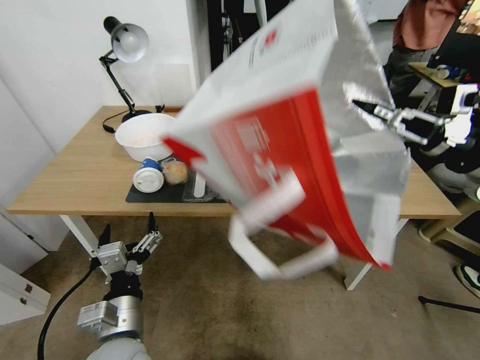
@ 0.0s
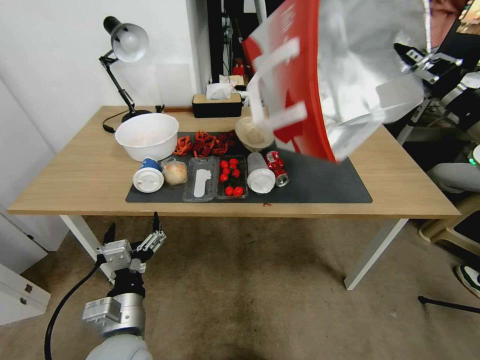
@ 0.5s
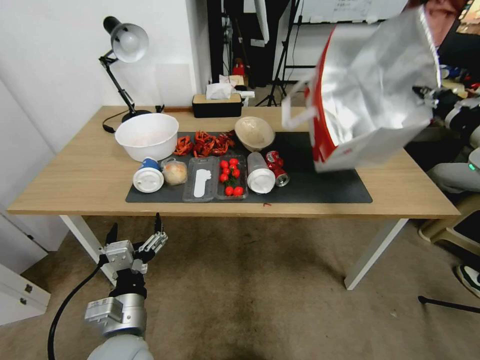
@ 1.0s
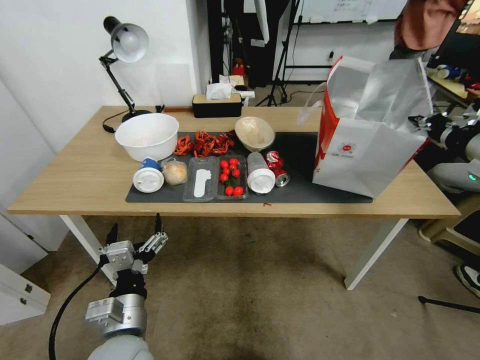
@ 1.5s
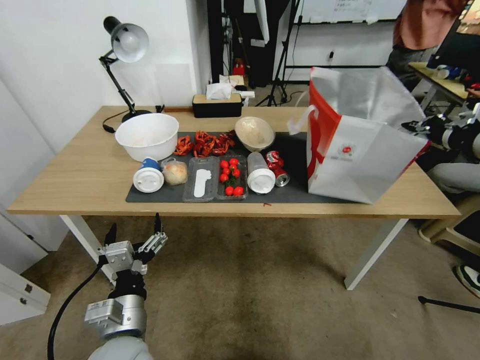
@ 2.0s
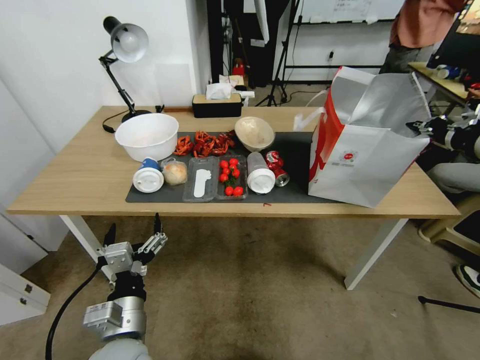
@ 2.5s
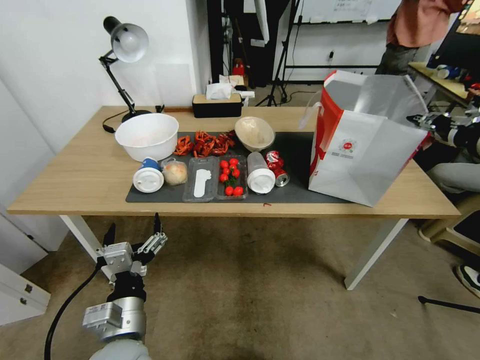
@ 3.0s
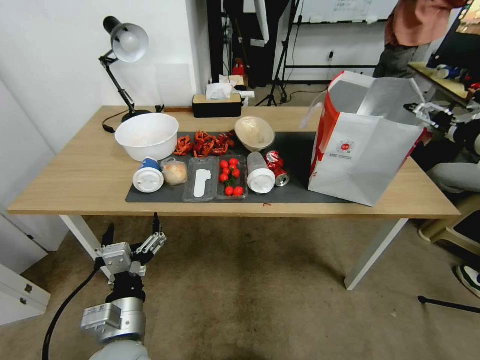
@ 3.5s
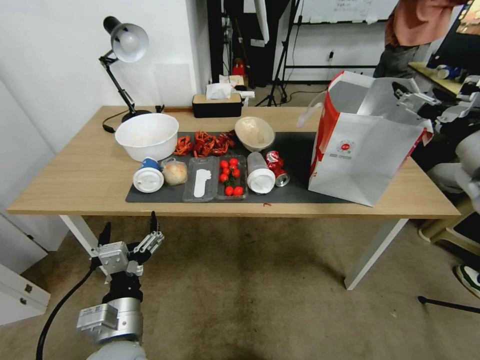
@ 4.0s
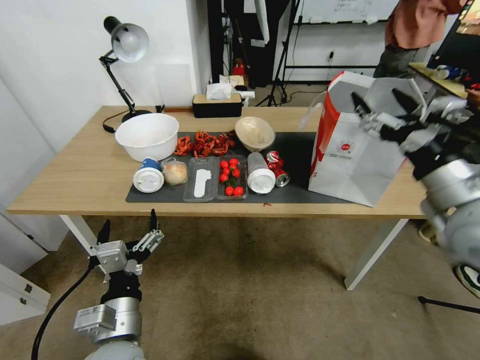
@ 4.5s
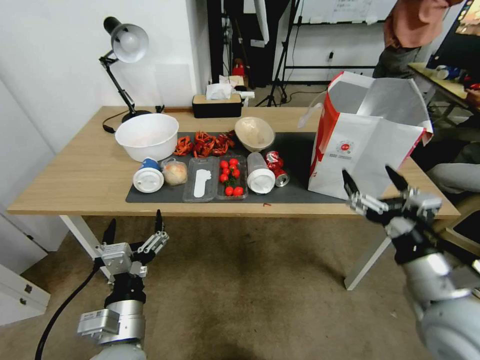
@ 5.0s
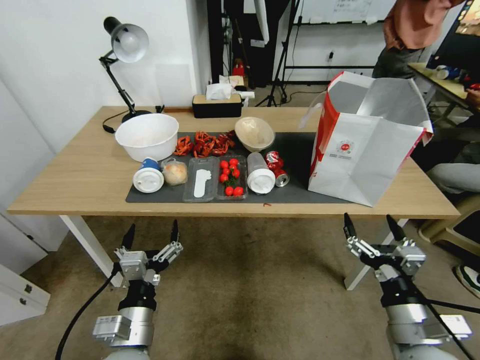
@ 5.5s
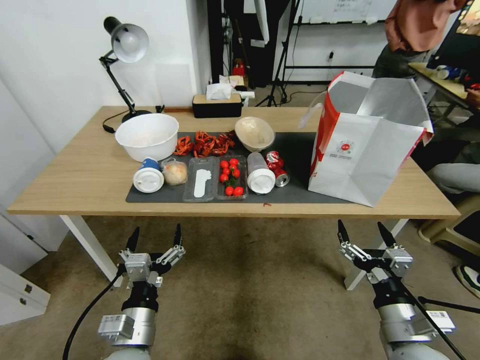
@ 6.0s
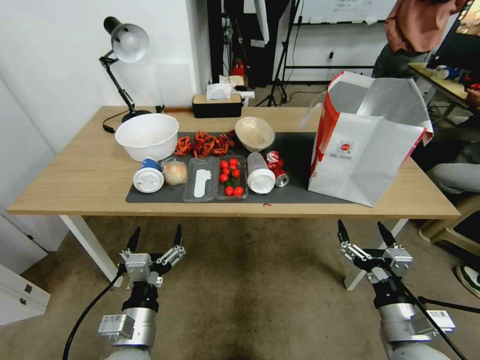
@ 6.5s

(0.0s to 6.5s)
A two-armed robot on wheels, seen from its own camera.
Task of the whole recording: Pick up the food delivery bag from the floor and place it on the table.
2.0s - 4.5s: The right gripper moves to the left, downward and backward, some 15 cm, and opens up.
4.5s - 6.5s: The right gripper shifts about 25 cm downward and backward.

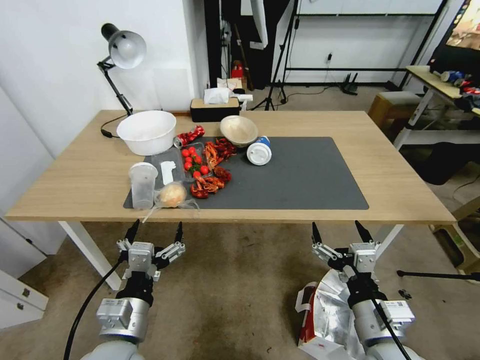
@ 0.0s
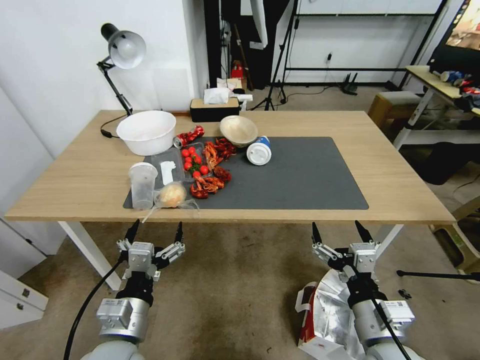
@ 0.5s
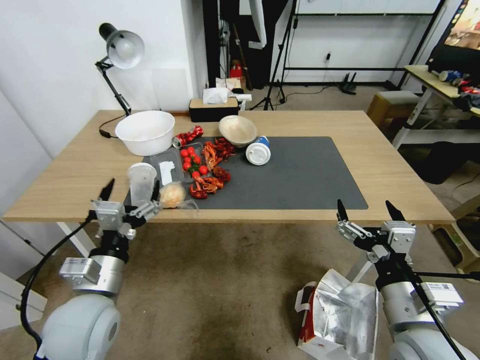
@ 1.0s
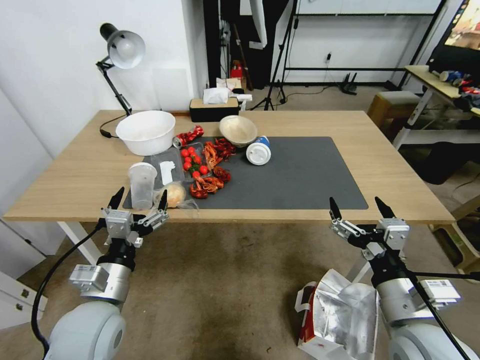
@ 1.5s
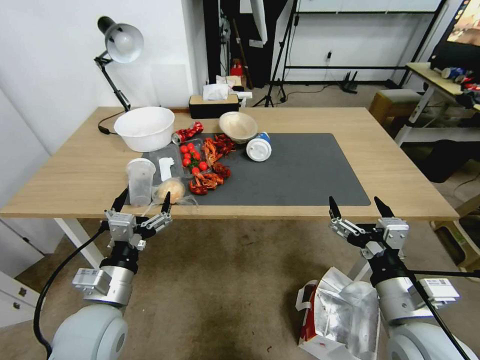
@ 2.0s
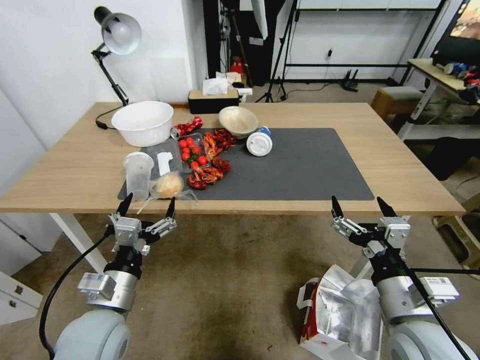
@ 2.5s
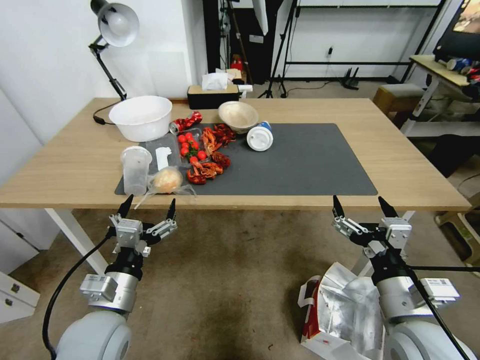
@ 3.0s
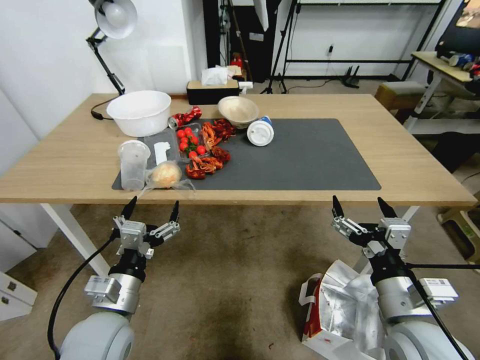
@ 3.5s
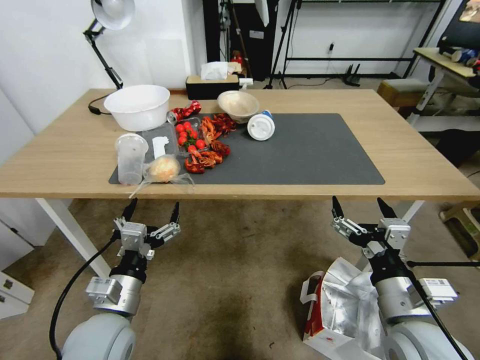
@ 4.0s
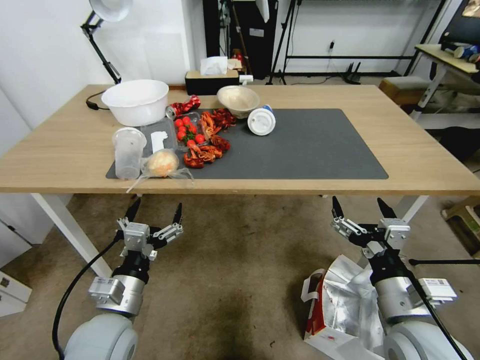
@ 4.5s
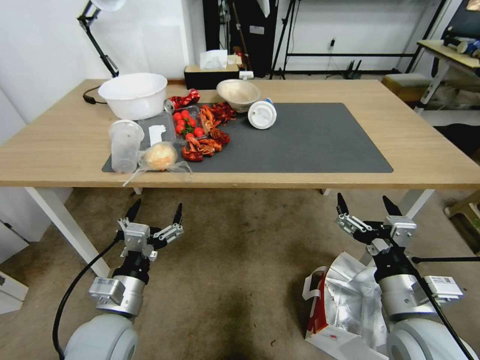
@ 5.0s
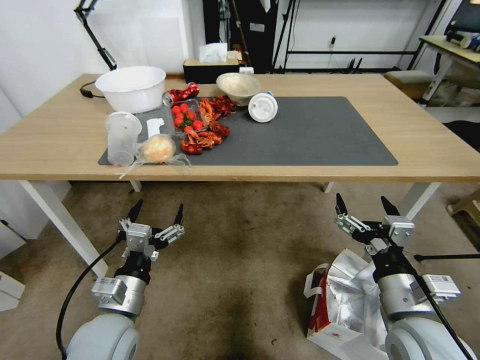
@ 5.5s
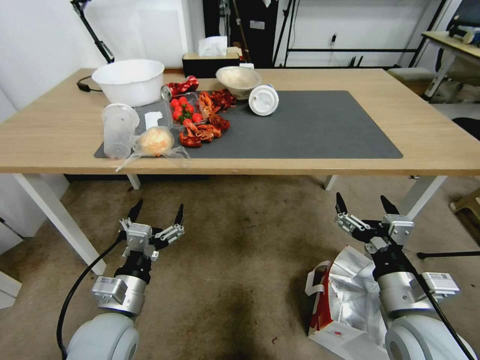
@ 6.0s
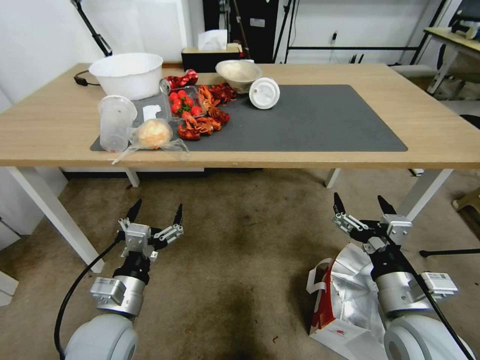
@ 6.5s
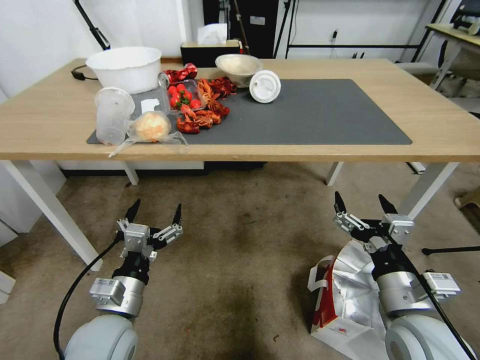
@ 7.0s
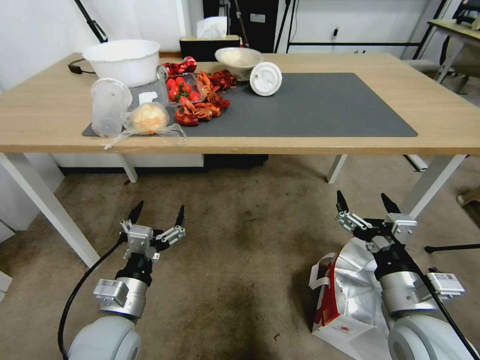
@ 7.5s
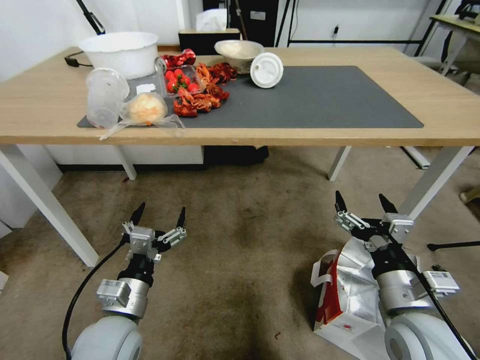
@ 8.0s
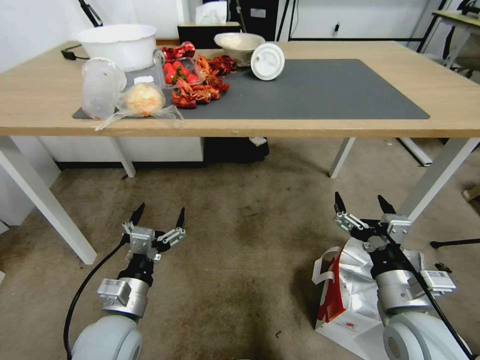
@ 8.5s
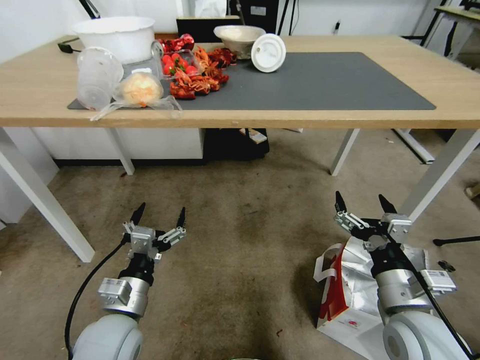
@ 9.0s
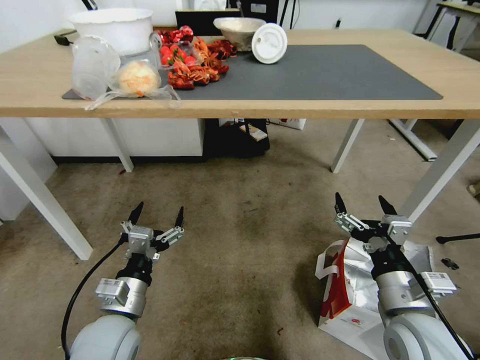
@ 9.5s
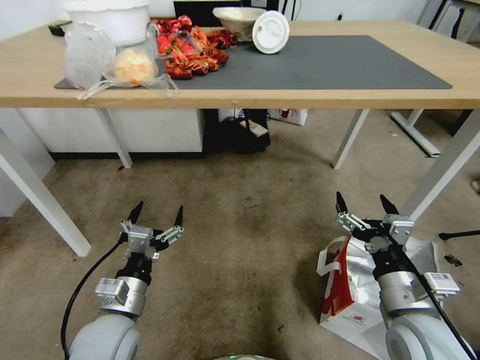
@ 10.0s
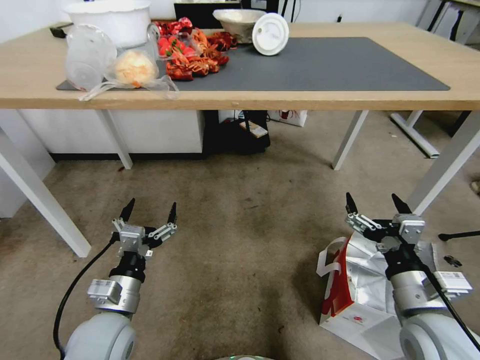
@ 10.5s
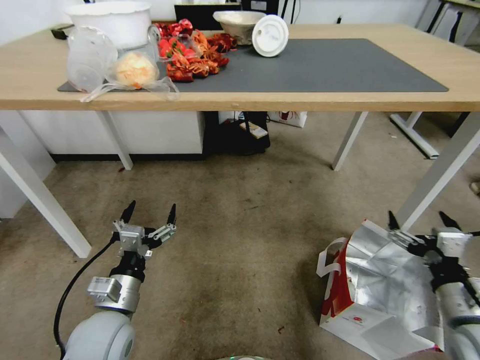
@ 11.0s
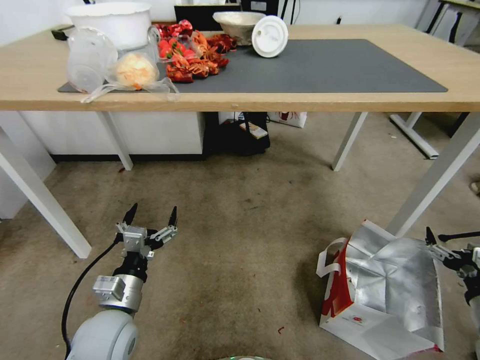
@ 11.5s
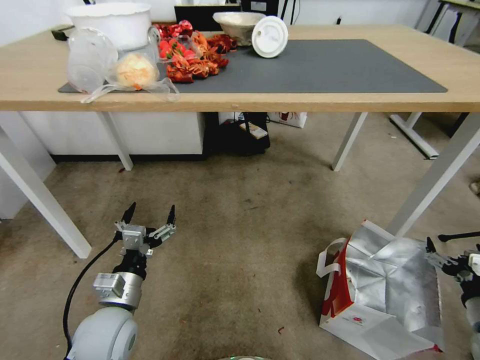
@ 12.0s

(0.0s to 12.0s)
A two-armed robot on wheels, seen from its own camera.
Task of the whole recording: Pick up the food delivery bag from the floor and place it on the table.
10.0s - 12.0s: The right gripper goes some 25 cm to the right and downward.

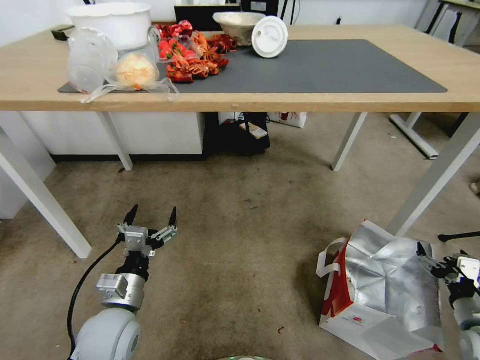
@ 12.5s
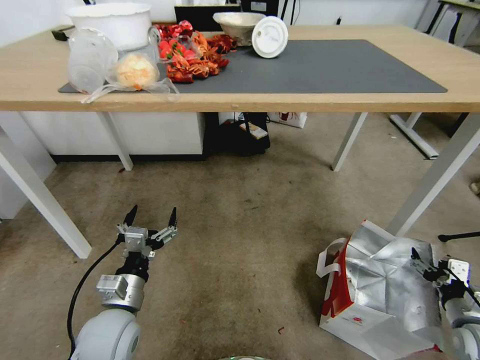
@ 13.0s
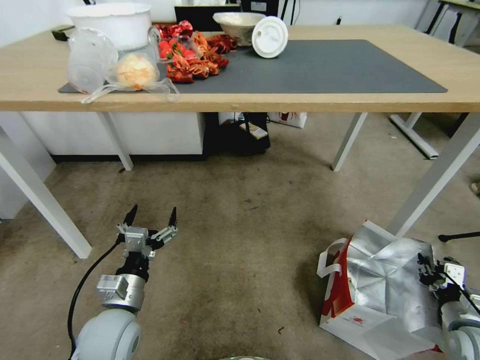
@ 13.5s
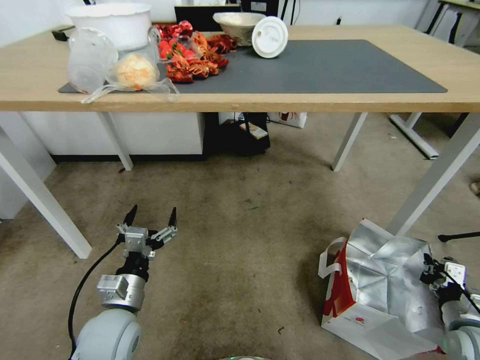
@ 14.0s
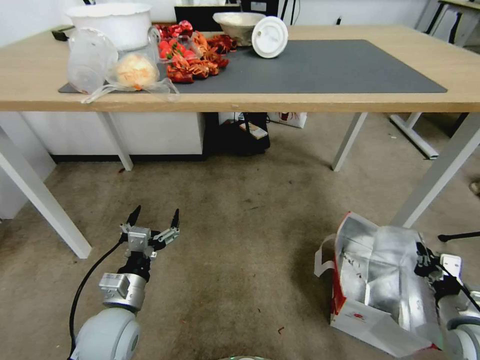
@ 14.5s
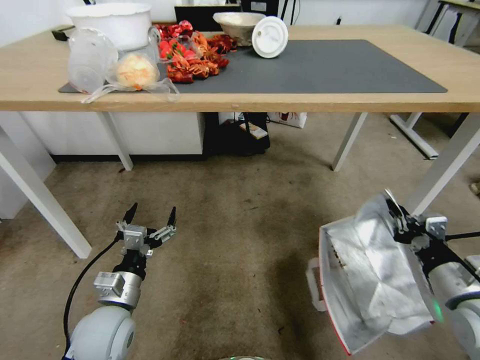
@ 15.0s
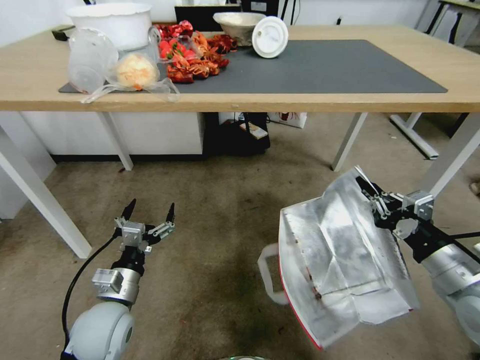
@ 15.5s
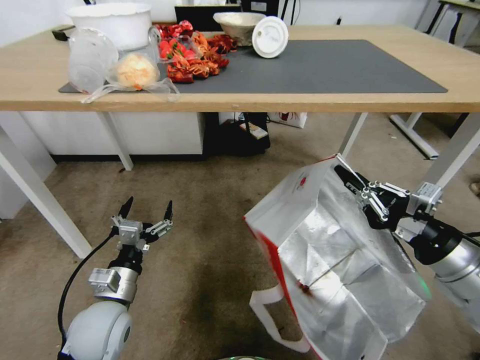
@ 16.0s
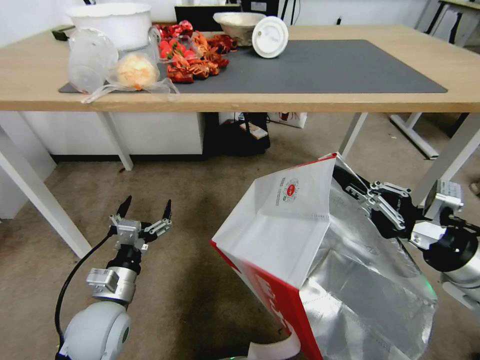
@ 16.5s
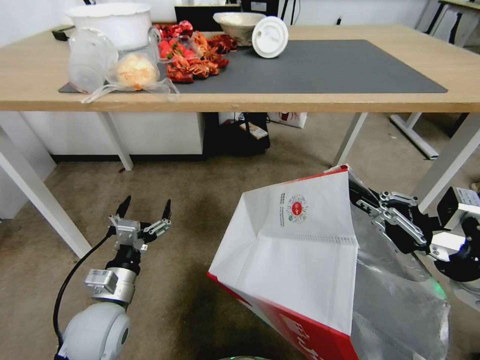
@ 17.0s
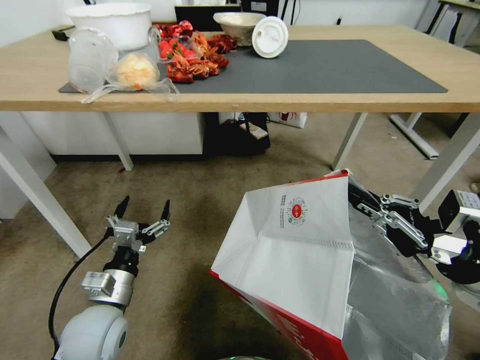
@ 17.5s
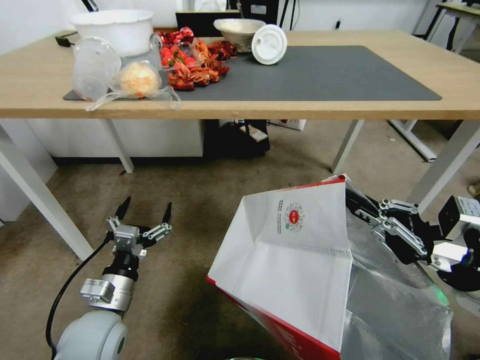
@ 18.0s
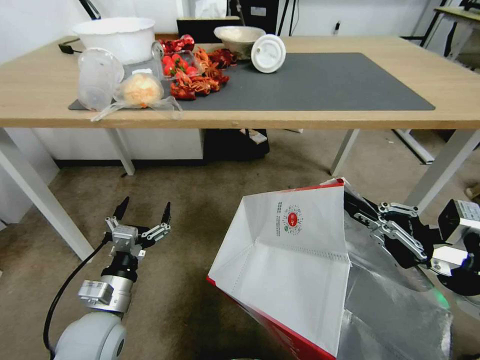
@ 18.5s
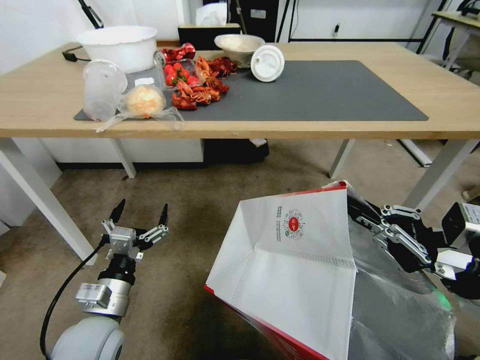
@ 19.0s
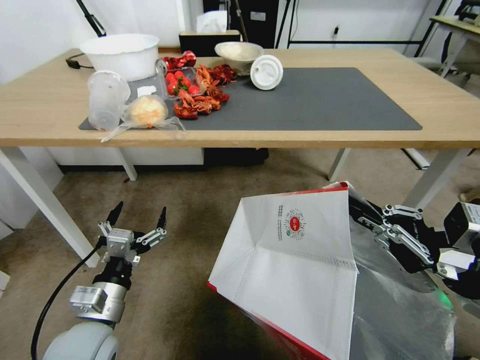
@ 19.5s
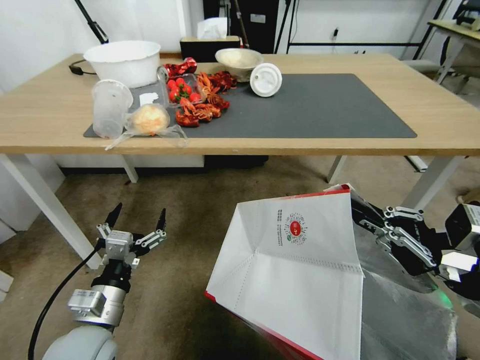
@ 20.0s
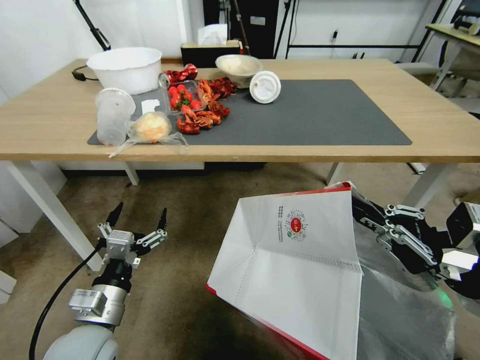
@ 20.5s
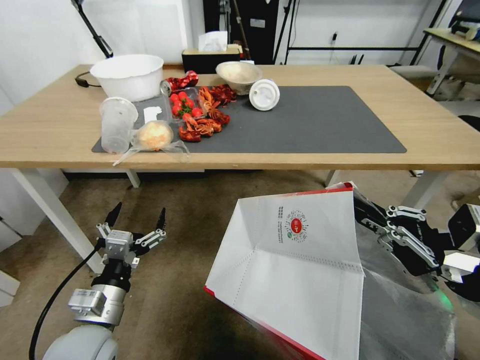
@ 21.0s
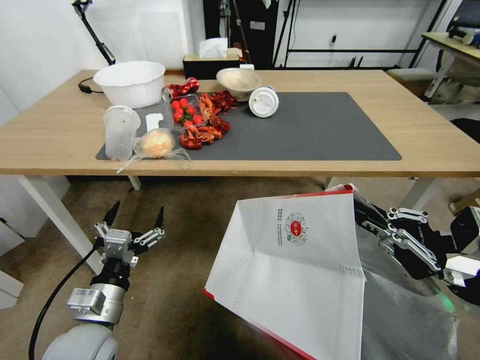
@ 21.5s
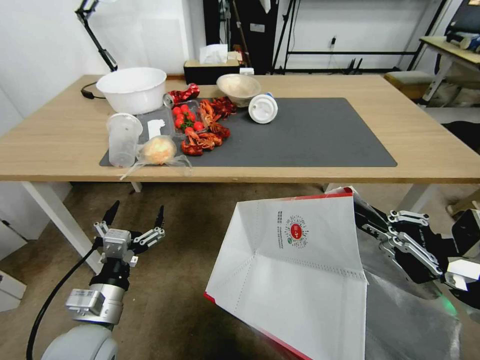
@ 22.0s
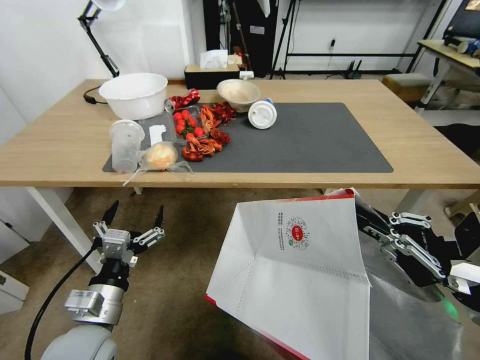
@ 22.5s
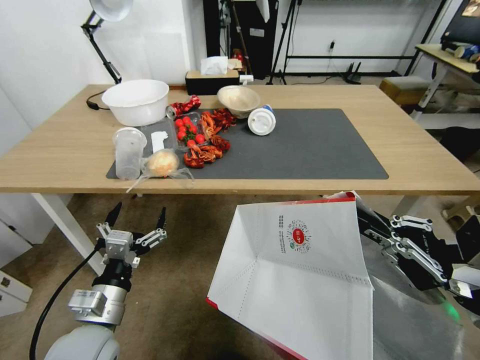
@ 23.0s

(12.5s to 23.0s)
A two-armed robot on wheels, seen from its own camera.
Task of the whole recording: Pick up the food delivery bag from the floor and place it on the table.
12.5s - 14.5s: The right gripper closes.
14.5s - 16.5s: The right gripper is displaced upward by approximately 20 cm.
